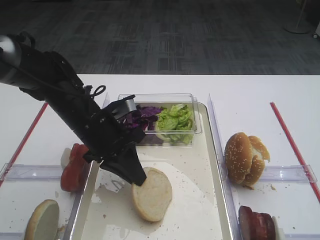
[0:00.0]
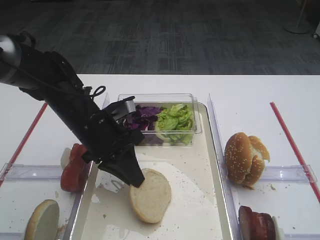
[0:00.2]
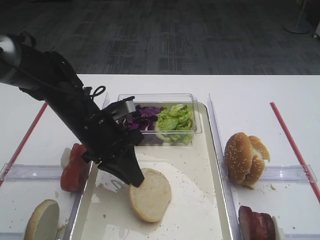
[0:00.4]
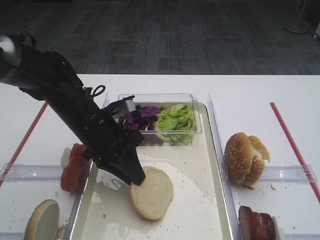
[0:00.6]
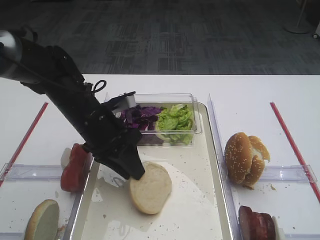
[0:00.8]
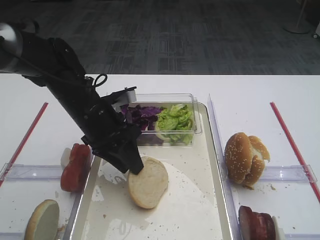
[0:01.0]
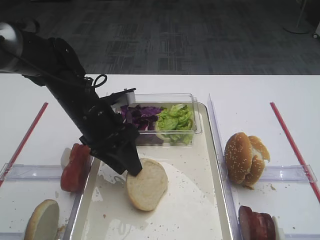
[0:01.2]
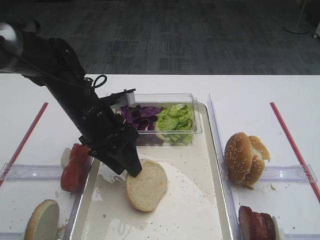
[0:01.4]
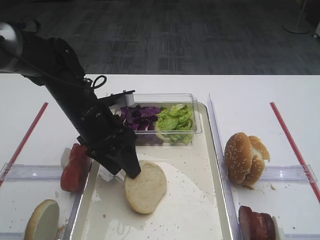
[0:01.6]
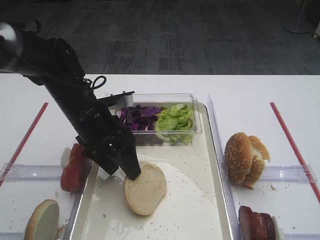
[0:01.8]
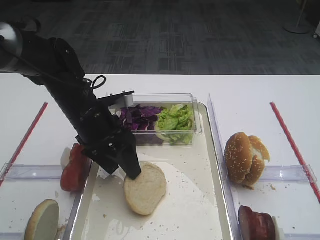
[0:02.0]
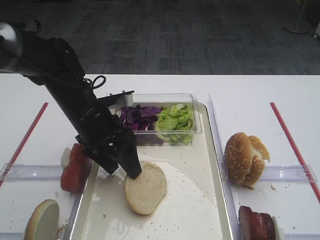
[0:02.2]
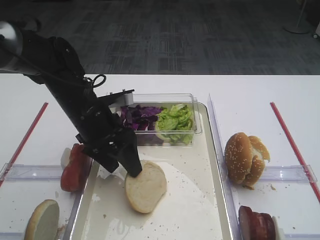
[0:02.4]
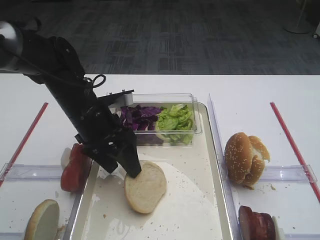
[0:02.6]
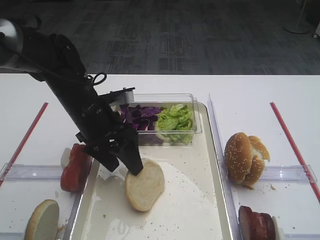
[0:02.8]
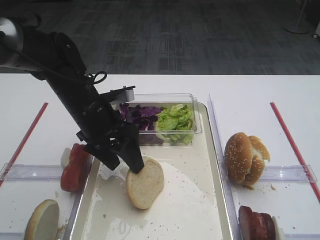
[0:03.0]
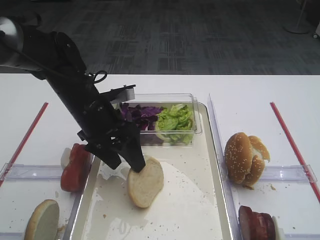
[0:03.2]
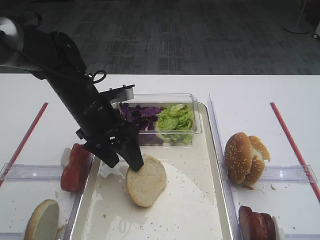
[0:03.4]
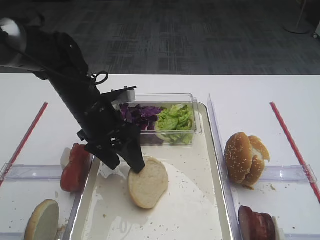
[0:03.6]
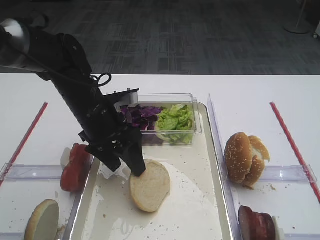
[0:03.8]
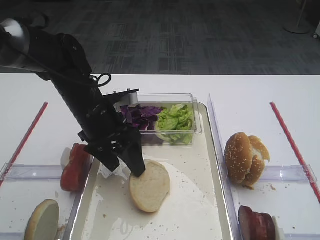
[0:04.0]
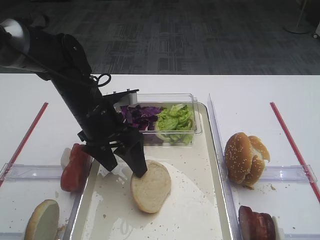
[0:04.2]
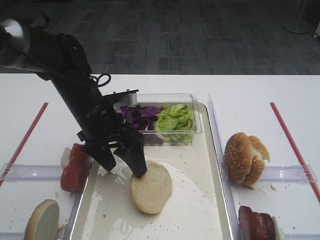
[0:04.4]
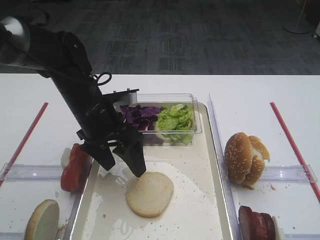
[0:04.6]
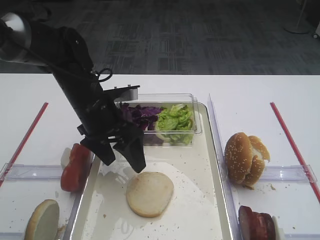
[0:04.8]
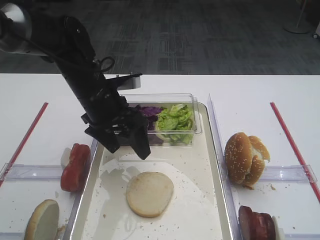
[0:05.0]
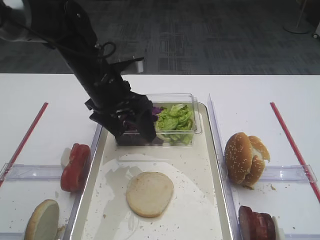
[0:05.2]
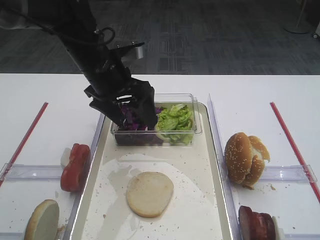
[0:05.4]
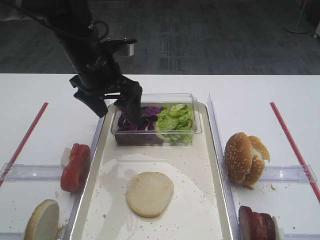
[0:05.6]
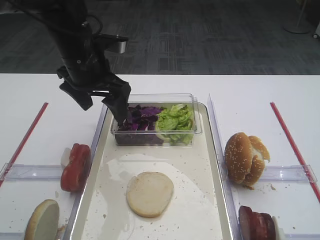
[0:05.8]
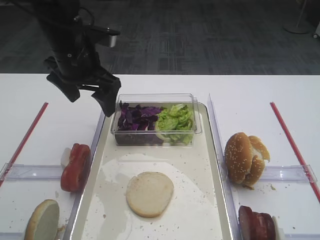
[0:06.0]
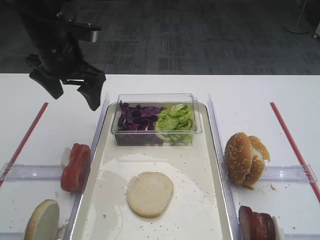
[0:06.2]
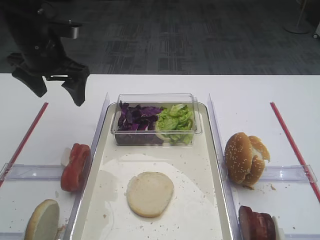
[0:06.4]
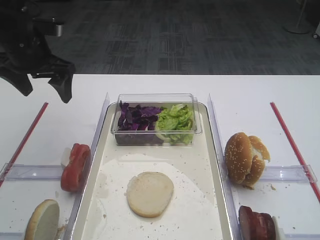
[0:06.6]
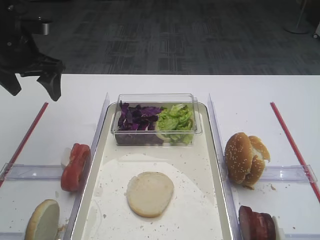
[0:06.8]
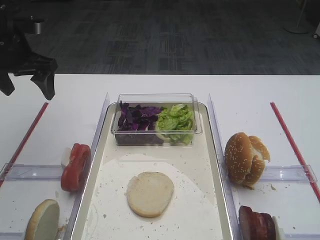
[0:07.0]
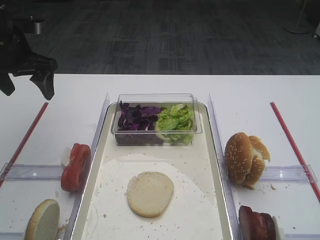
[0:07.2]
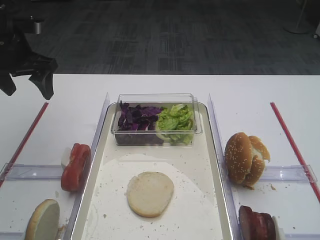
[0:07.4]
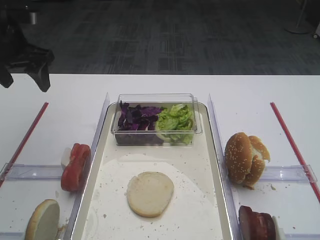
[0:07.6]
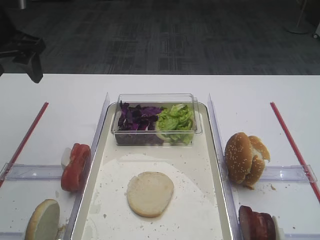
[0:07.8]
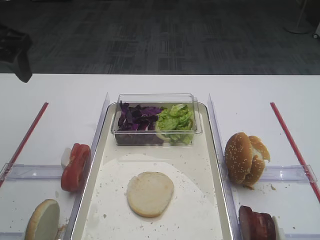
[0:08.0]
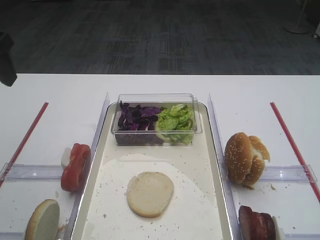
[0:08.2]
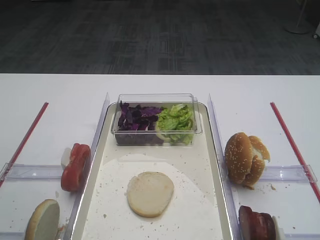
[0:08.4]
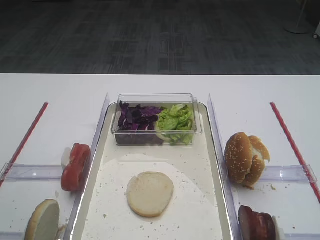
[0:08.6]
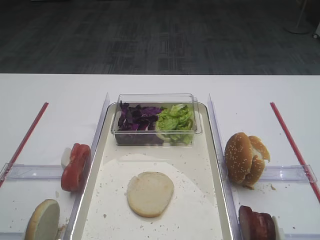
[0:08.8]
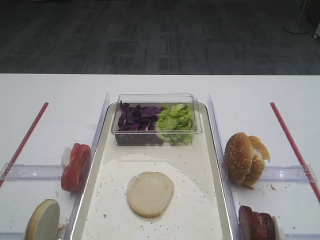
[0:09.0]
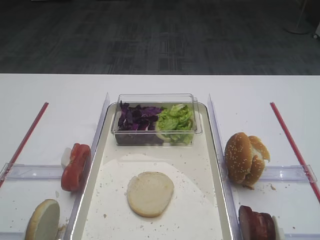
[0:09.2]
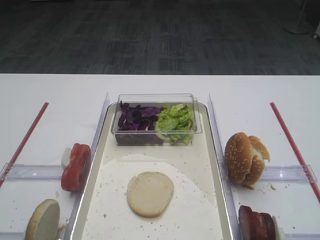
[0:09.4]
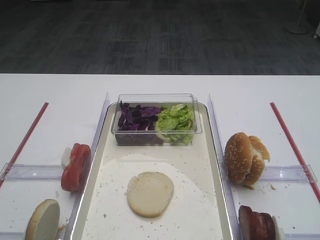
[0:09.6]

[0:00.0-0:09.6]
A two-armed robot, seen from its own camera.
Step, 0:00.0 to 0:05.0: Place the bread slice on the tray with the left gripper.
0:00.0 to 0:01.6: The left gripper opens.
0:01.6 to 0:03.2: Neither gripper changes place.
0:03.2 to 0:04.8: The grippers make only small movements.
0:04.8 to 0:06.4: The left gripper shifts some 15 cm to the left, upward and forward.
0:06.4 to 0:08.0: The left gripper is displaced to the left, upward and backward by roughly 10 cm.
0:08.0 to 0:09.6: The left gripper goes some 30 cm backward.

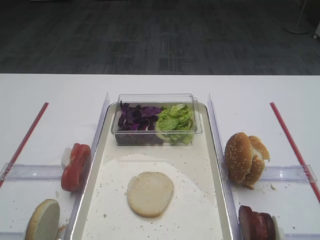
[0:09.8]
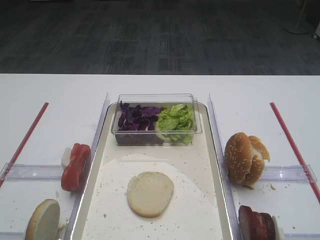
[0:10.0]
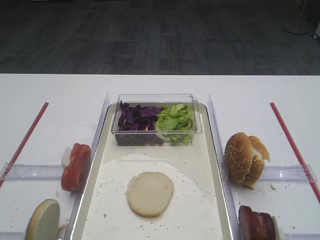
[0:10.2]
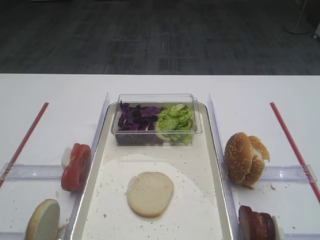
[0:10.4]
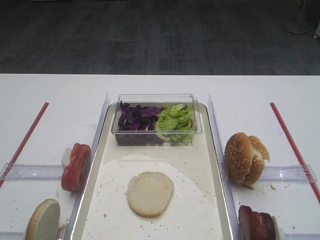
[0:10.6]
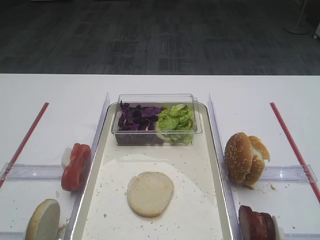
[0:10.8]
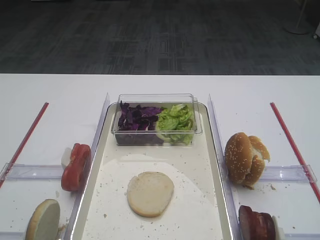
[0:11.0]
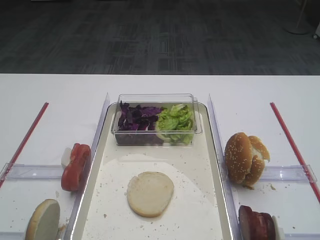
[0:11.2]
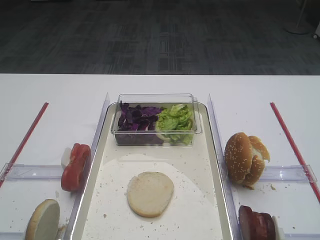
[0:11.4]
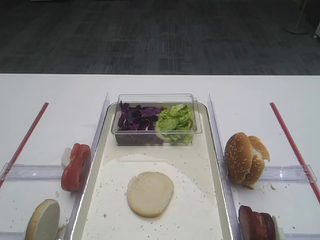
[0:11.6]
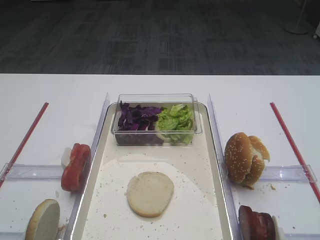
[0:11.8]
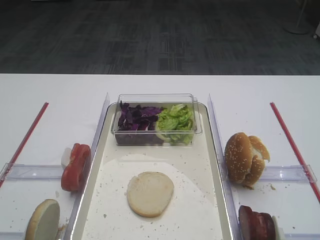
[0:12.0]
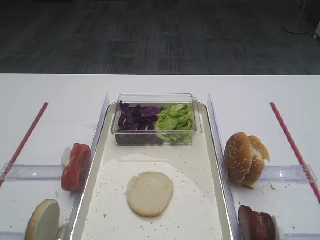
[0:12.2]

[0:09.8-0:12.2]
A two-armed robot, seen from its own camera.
0:11.0 to 0:12.2: Both grippers stay put.

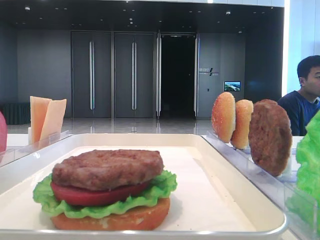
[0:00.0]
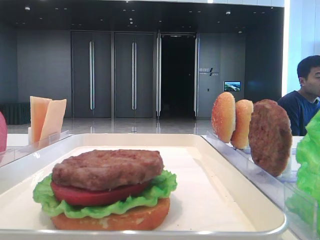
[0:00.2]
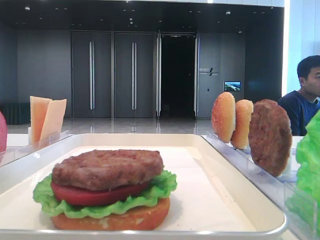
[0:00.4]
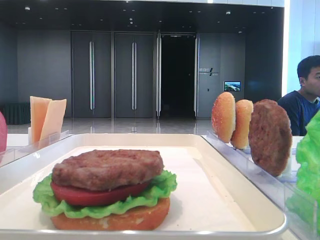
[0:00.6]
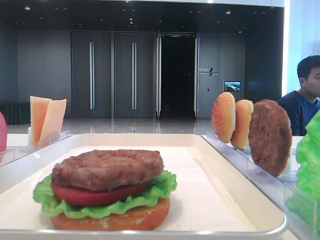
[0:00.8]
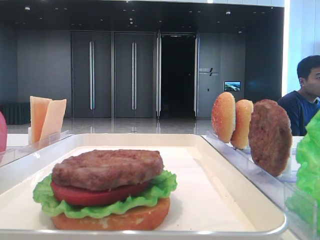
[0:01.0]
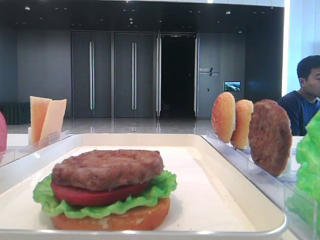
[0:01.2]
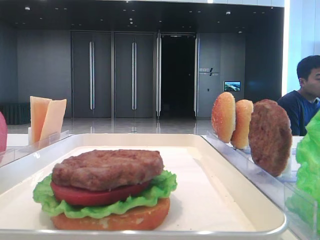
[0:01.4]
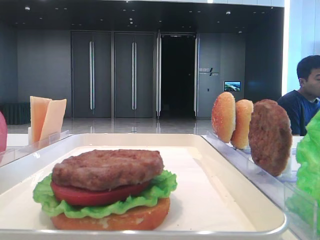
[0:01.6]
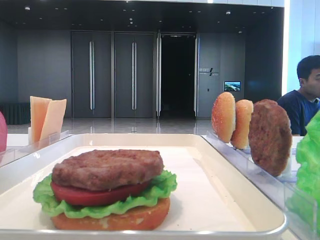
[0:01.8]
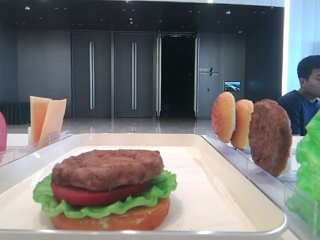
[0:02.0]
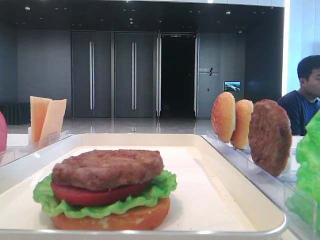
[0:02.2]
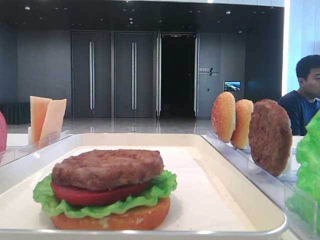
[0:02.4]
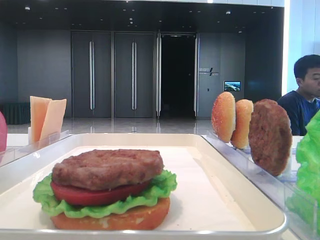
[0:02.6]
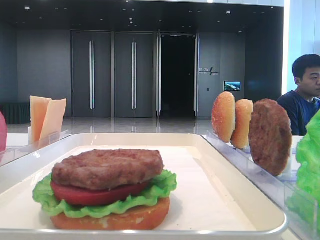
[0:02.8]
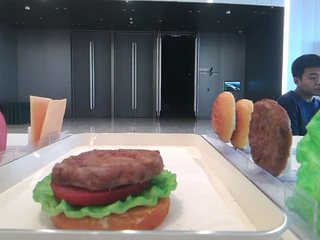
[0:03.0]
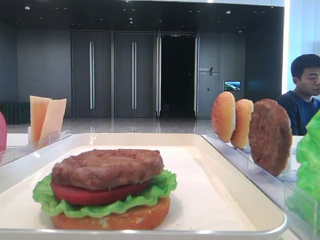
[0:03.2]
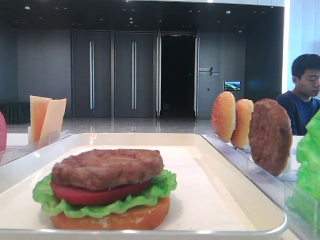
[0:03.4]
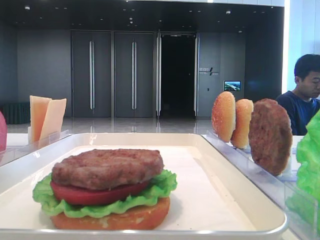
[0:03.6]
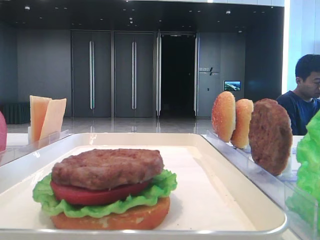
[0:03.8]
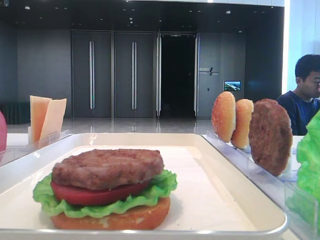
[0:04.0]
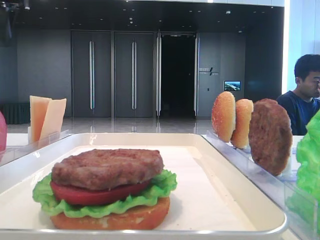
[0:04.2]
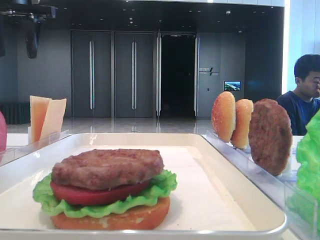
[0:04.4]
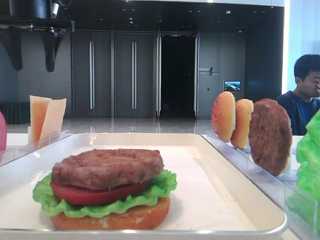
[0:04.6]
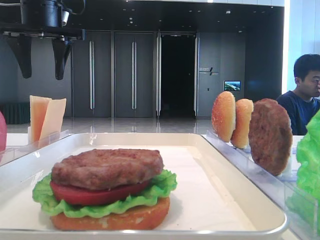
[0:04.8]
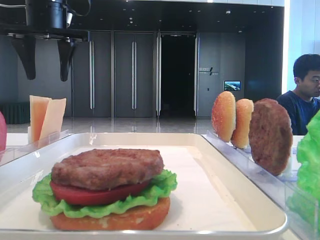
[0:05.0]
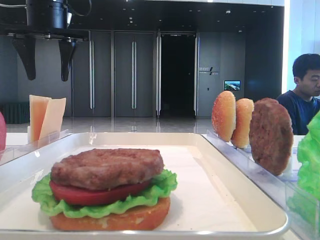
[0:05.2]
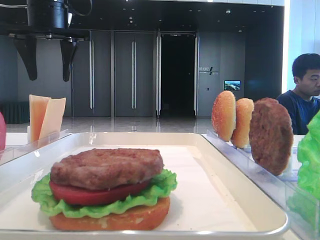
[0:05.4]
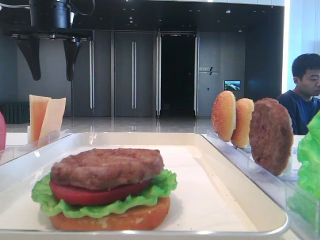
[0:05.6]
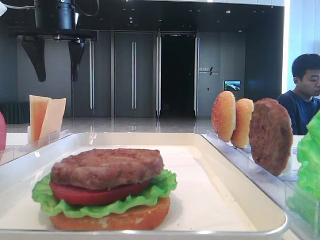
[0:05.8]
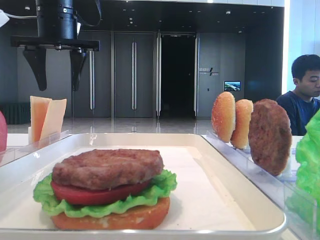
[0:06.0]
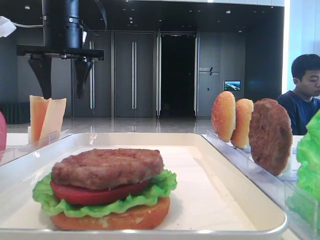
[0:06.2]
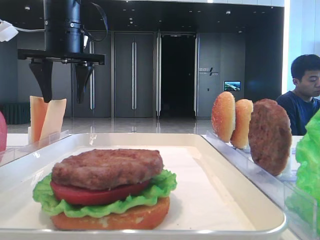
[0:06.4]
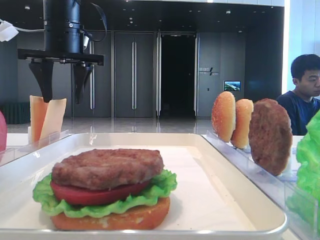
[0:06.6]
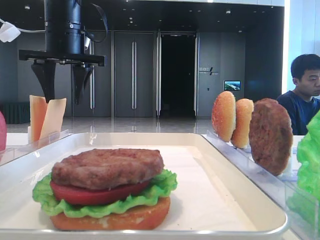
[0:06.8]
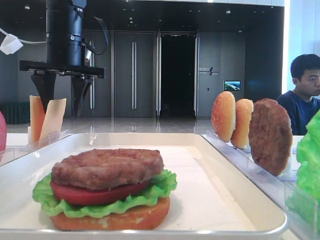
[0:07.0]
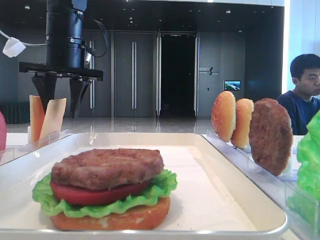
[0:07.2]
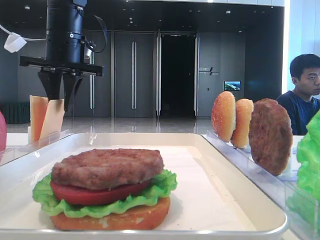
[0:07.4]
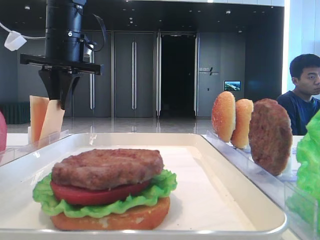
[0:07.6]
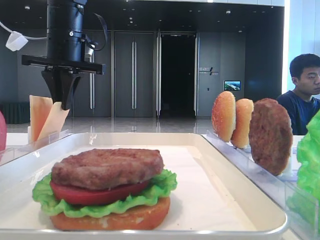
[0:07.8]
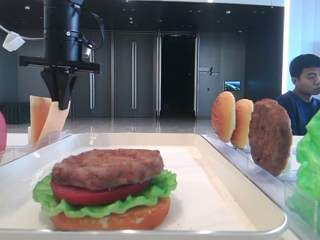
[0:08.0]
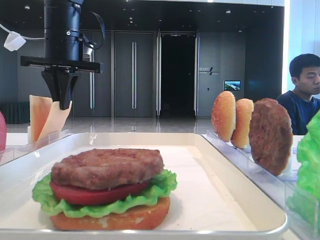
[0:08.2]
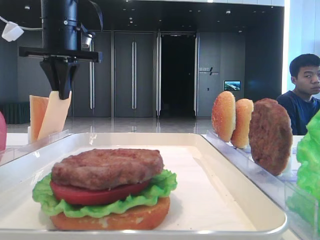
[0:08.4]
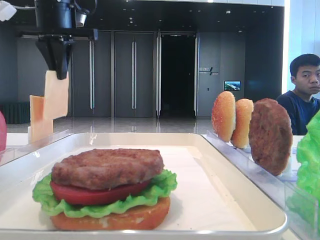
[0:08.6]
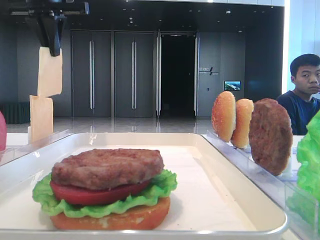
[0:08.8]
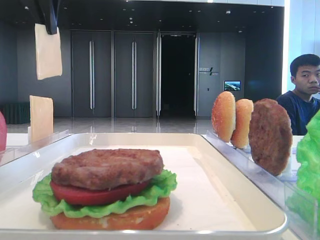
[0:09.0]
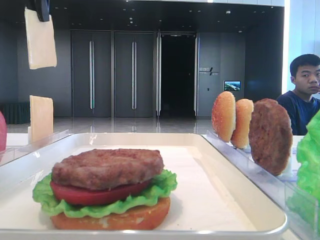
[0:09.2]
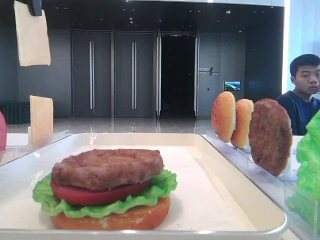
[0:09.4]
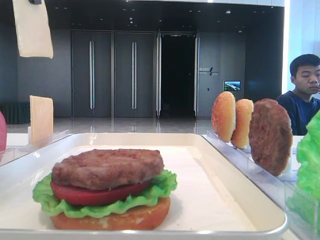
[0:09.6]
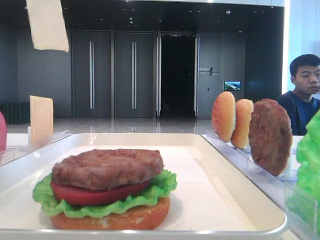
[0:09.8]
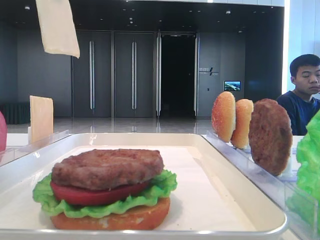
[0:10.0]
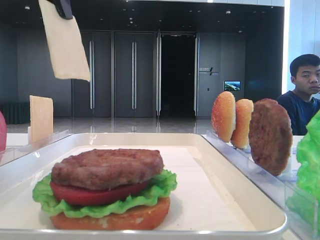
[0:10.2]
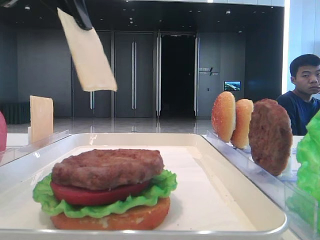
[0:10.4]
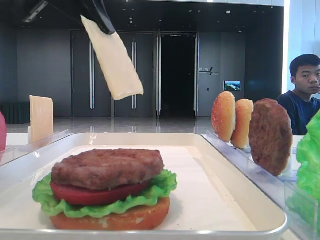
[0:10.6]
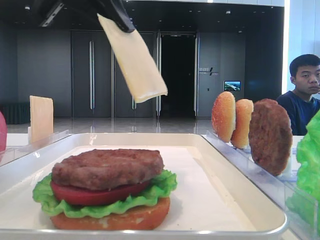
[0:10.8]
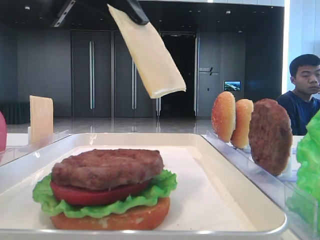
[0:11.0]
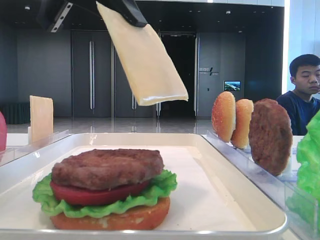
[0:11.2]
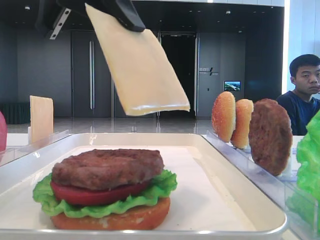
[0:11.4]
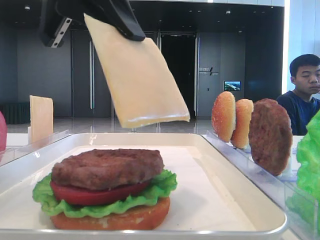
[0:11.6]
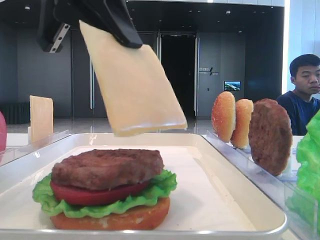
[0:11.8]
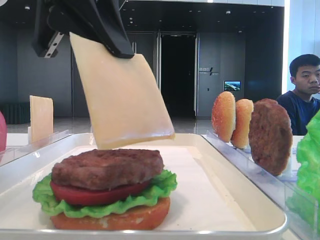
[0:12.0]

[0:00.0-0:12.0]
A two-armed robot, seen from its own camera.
Step, 0:00.0 to 0:08.0: Pick up the cheese slice with the left hand.
0:03.0 to 0:04.4: The left gripper heads forward, to the right and downward, covering approximately 15 cm.
0:04.4 to 0:06.0: The left gripper goes some 10 cm to the right and downward.
0:06.0 to 0:07.6: The left gripper closes its fingers.
0:07.6 to 0:09.0: The left gripper travels upward by roughly 10 cm.
0:09.0 to 0:10.4: The left gripper is displaced backward by some 10 cm.
0:10.4 to 0:12.0: The left gripper travels downward by roughly 5 cm.
